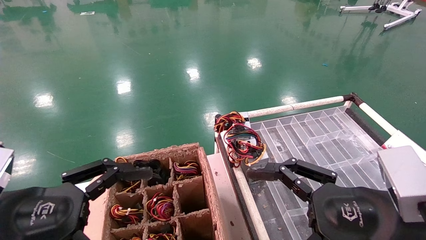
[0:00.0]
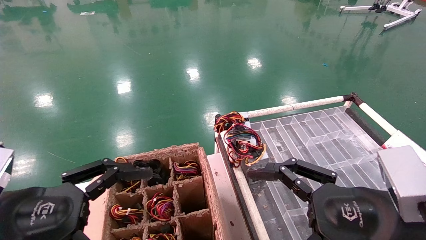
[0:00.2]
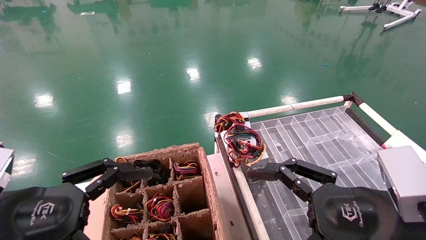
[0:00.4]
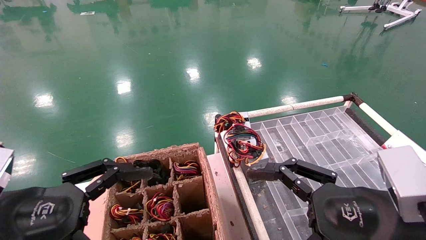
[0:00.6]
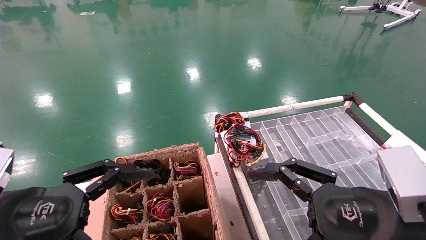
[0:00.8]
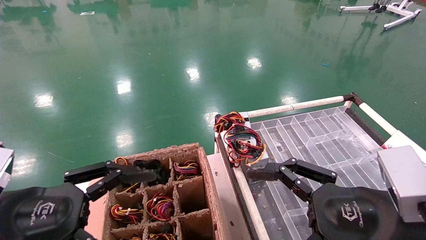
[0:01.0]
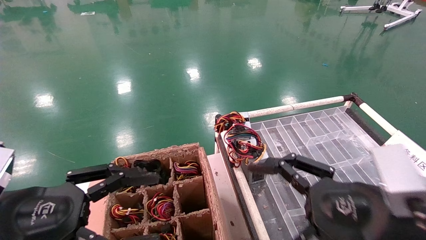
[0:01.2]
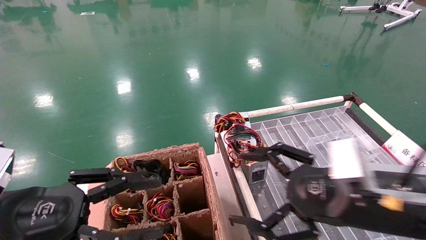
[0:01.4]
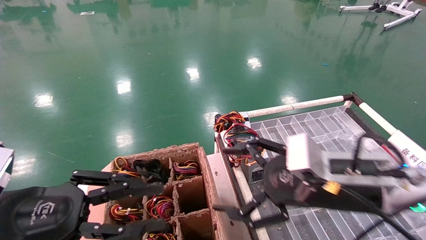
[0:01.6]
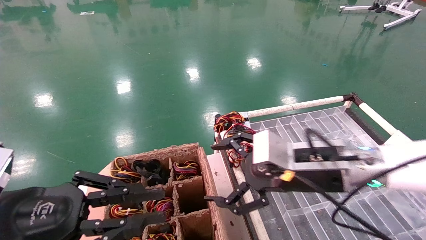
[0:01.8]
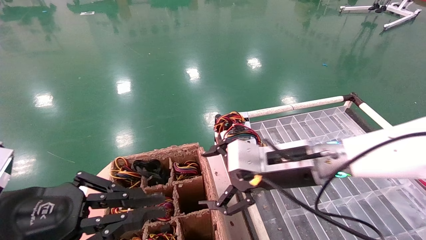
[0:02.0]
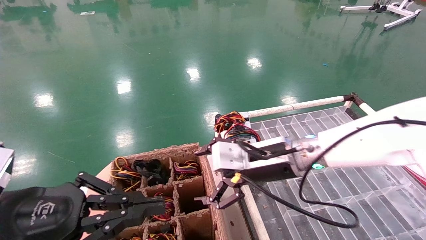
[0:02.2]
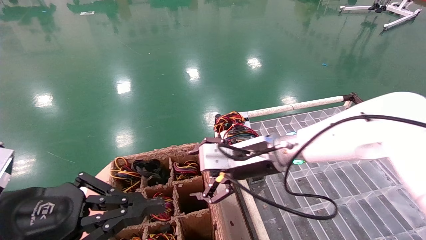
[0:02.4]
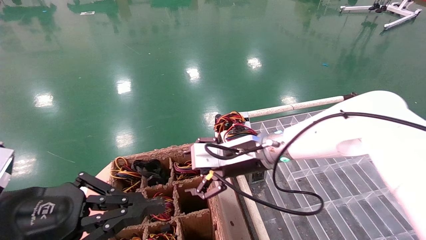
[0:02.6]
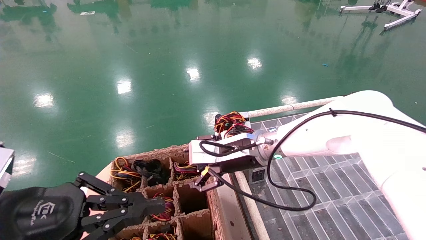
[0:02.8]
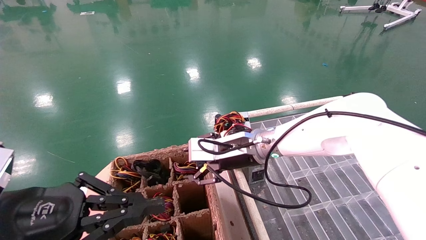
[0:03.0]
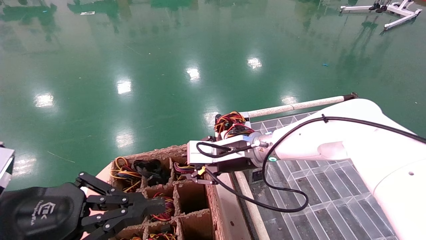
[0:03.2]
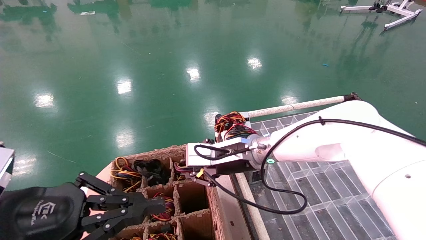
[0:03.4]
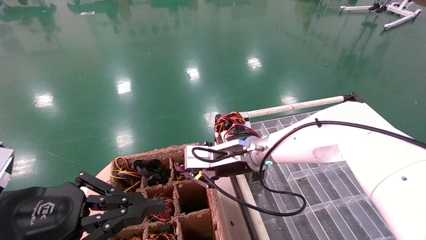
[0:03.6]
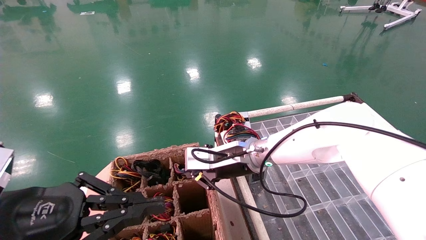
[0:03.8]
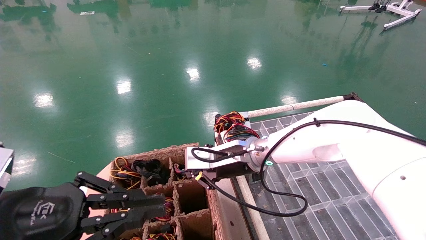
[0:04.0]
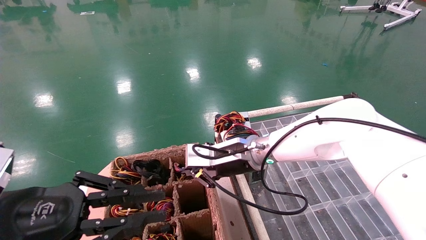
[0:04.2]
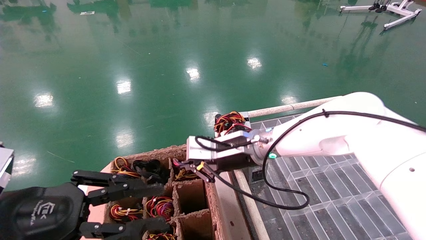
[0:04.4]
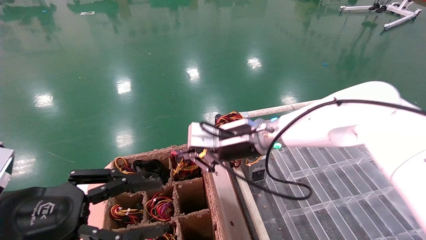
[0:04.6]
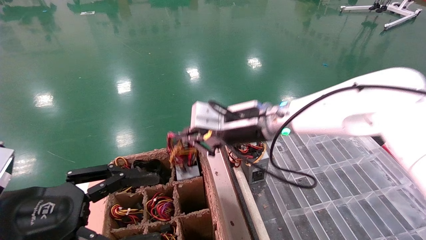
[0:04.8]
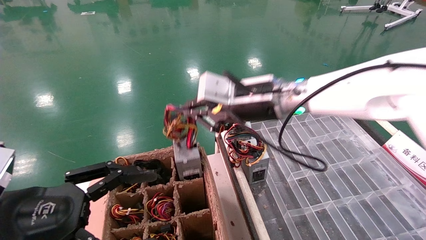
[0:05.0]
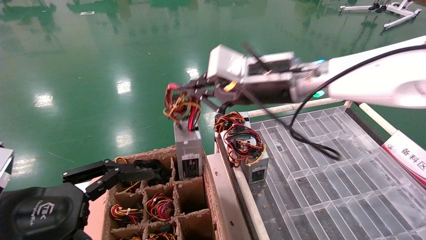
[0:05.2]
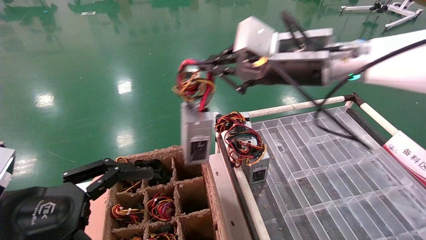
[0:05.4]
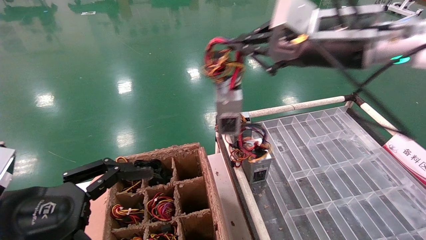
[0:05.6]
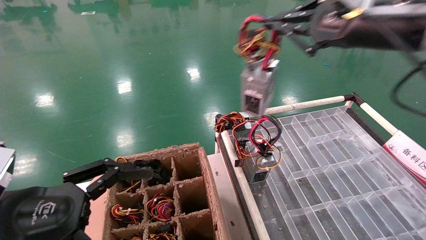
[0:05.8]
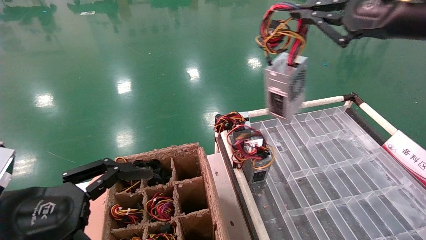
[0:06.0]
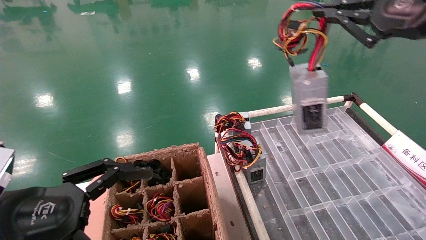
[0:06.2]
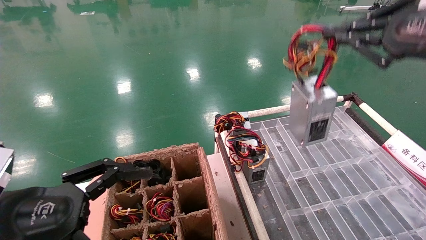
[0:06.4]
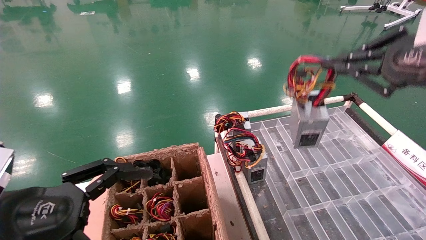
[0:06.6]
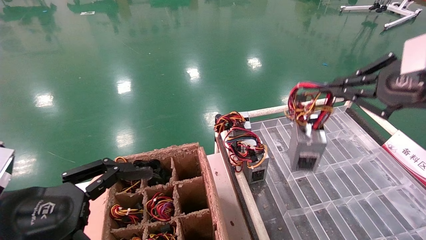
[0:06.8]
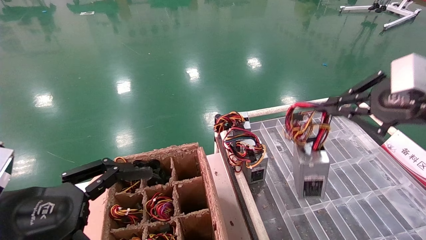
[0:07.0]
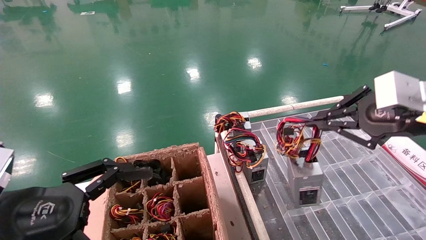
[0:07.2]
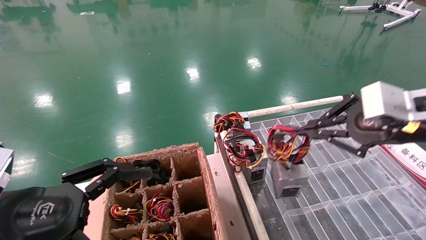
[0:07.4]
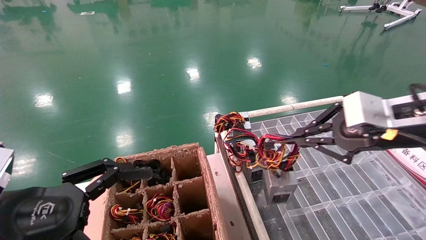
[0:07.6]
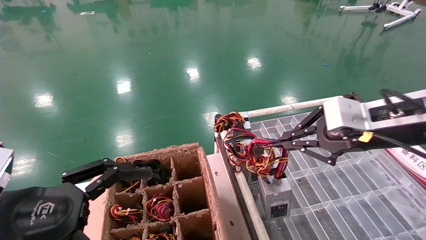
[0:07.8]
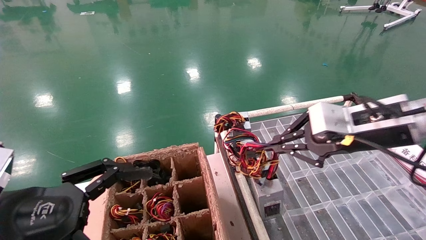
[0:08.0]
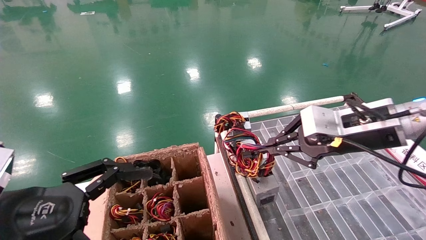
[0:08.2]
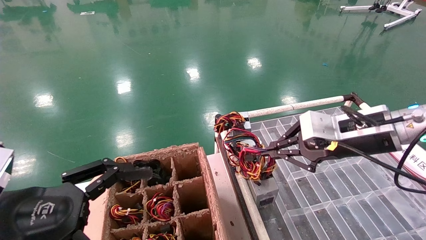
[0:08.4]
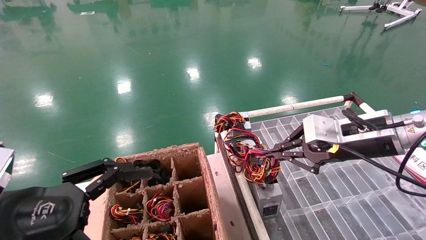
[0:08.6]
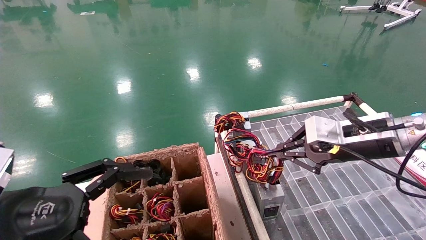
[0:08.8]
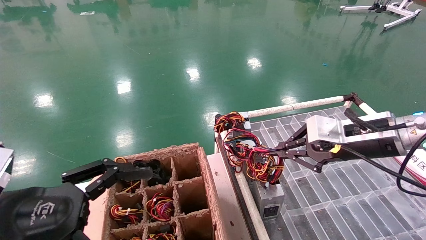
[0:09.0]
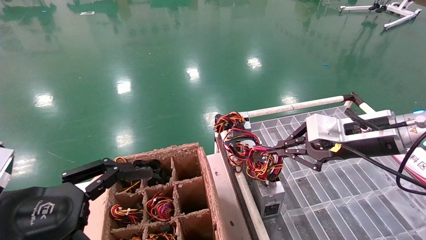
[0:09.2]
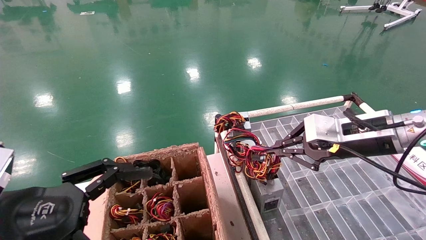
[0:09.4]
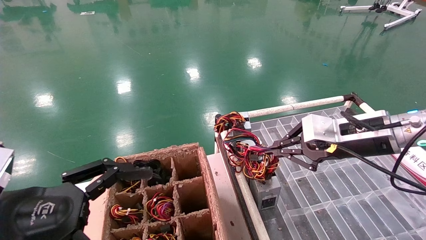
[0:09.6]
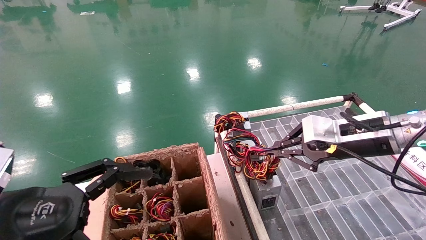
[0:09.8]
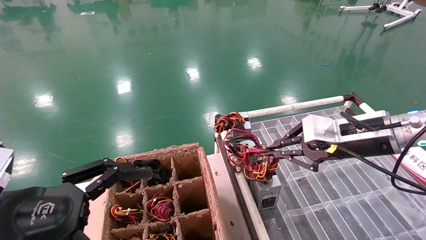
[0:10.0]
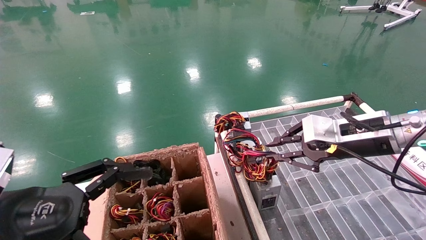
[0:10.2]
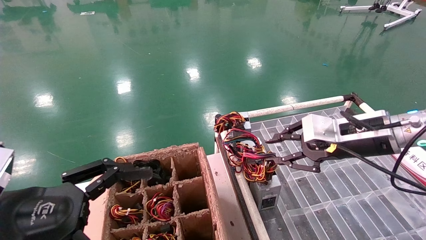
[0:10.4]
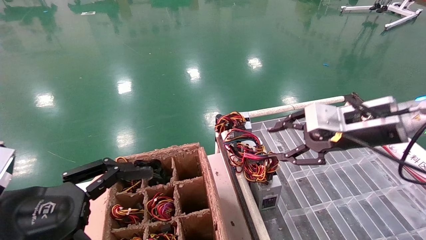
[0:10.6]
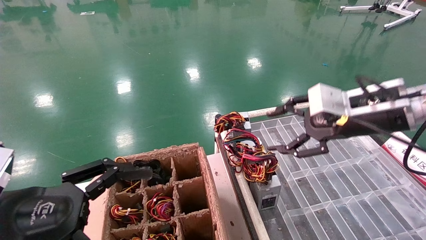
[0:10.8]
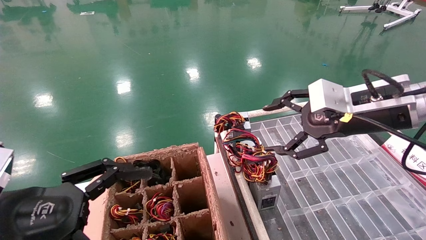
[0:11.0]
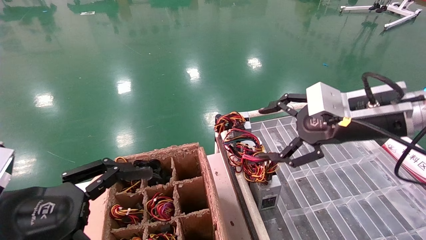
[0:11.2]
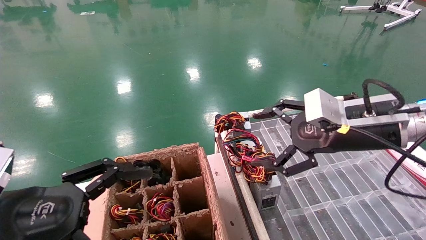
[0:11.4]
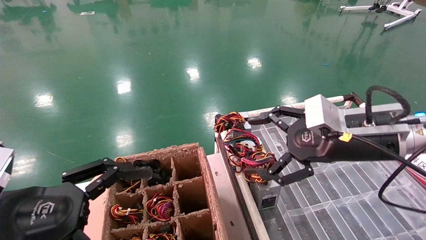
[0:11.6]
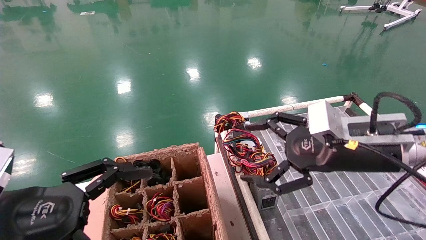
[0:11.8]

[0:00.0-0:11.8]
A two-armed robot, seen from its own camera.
Step, 0:01.2 to 0:03.8: Grab and lift the power supply from the large box.
Step, 0:04.0 to 0:10.2: Place the power supply on the operating table.
0:00.0 to 0:01.4: The right gripper moves forward, about 5 cm; the left gripper closes up.
0:01.4 to 0:03.0: The left gripper closes. The right gripper goes roughly 25 cm forward and to the left.
0:03.0 to 0:04.4: The right gripper closes.
0:04.4 to 0:06.0: The left gripper opens up; the right gripper is displaced to the right, upward and backward by some 35 cm.
0:06.0 to 0:07.4: The right gripper heads downward, covering roughly 10 cm.
0:07.4 to 0:08.8: The right gripper moves forward and downward, about 10 cm.
0:08.8 to 0:10.4: Both grippers stay put.
0:10.4 to 0:11.8: The right gripper ends up some 5 cm from where it was, and opens up.
